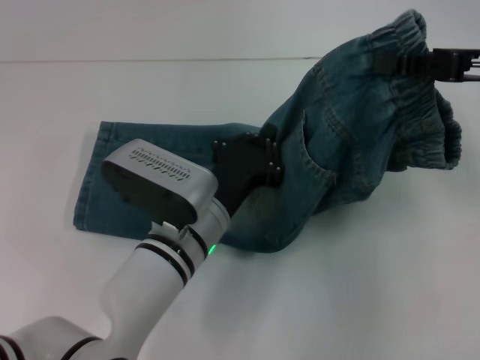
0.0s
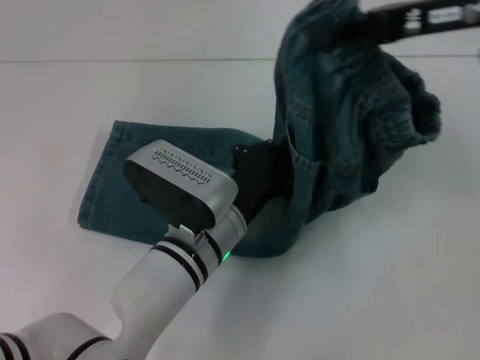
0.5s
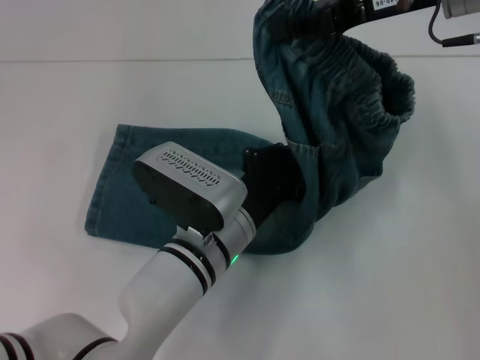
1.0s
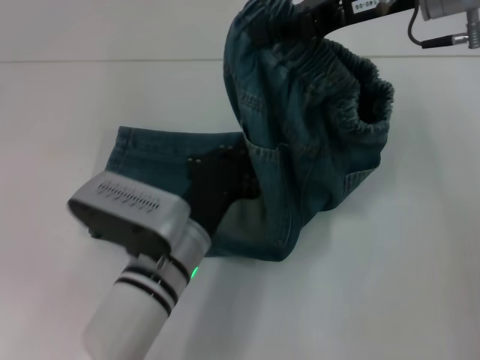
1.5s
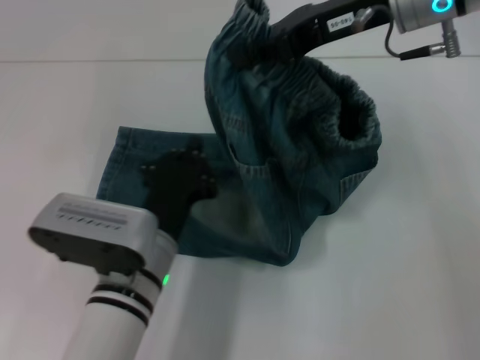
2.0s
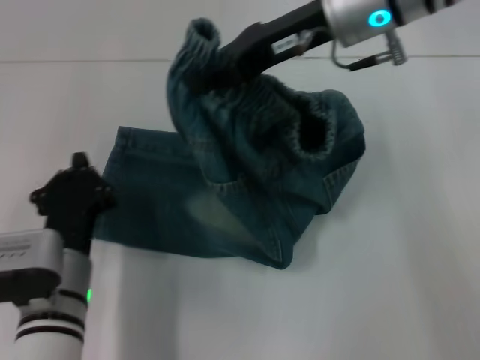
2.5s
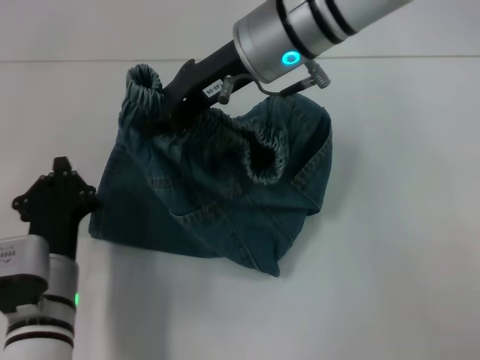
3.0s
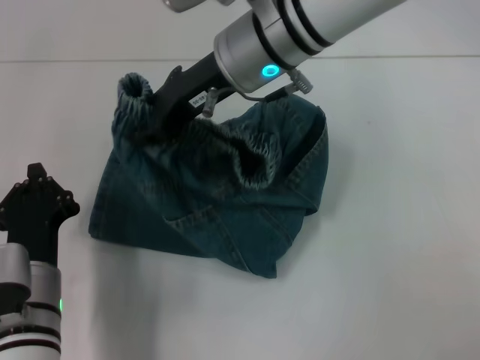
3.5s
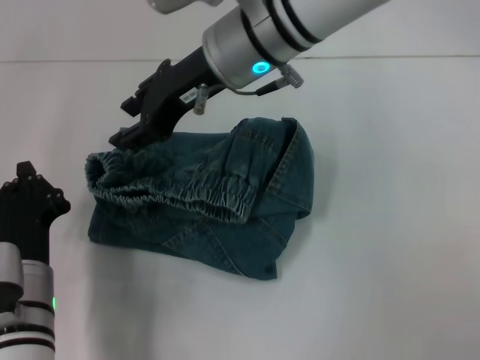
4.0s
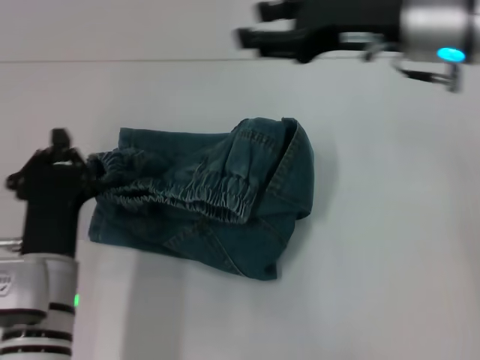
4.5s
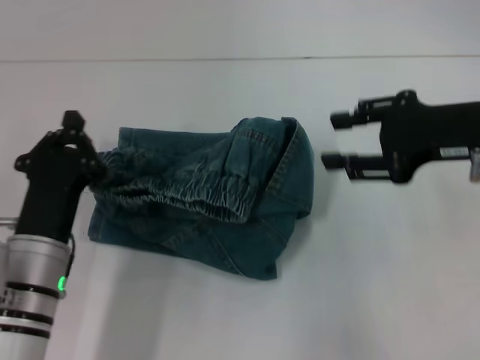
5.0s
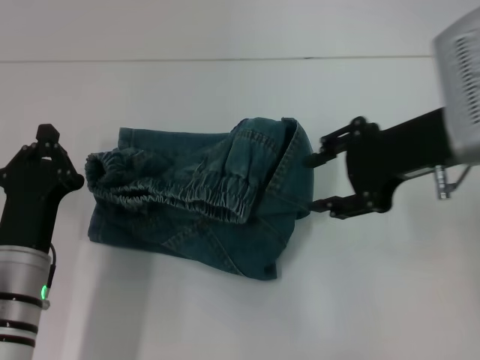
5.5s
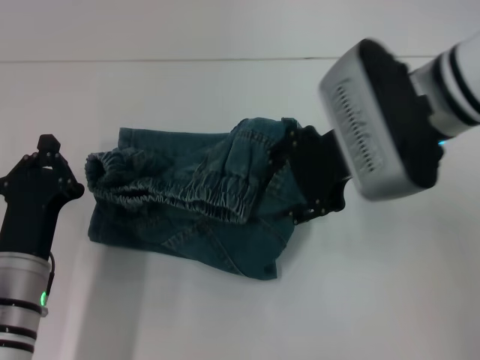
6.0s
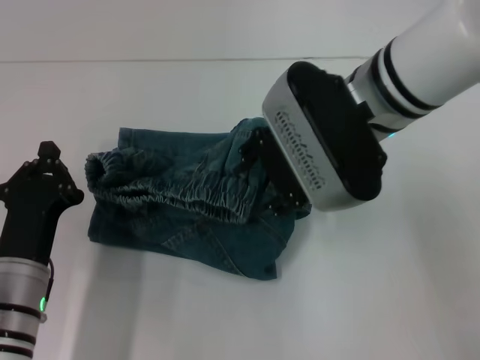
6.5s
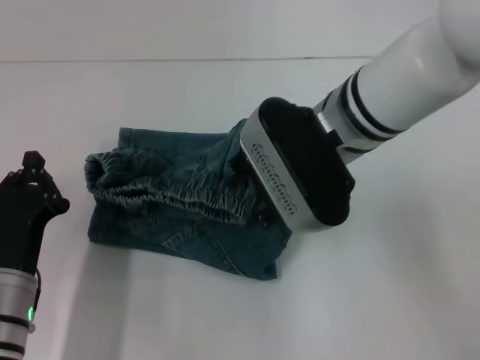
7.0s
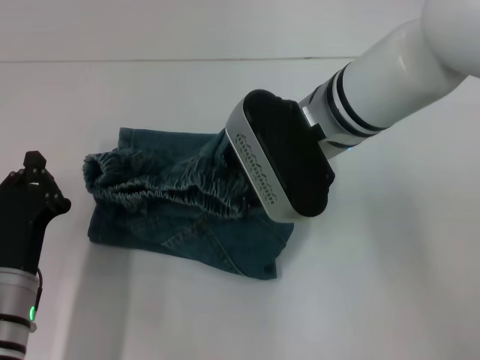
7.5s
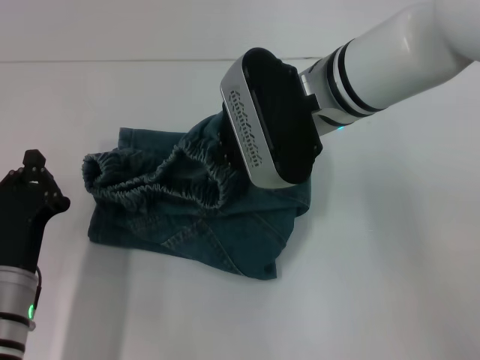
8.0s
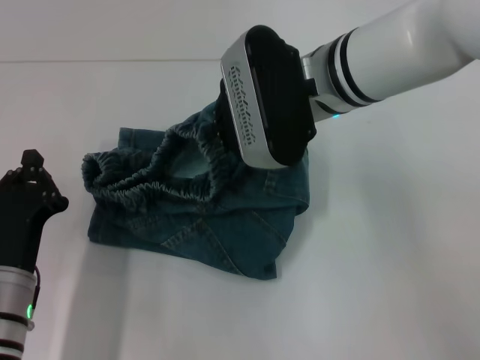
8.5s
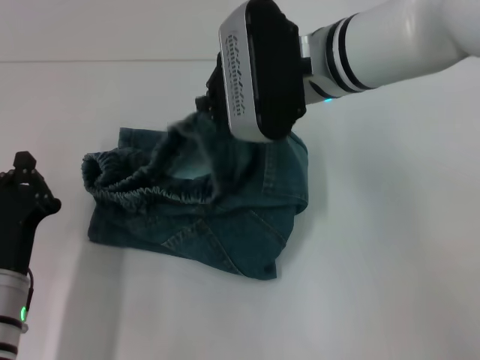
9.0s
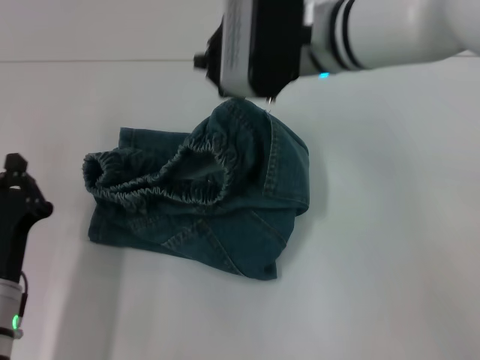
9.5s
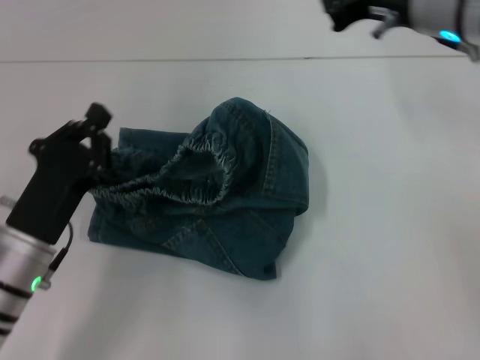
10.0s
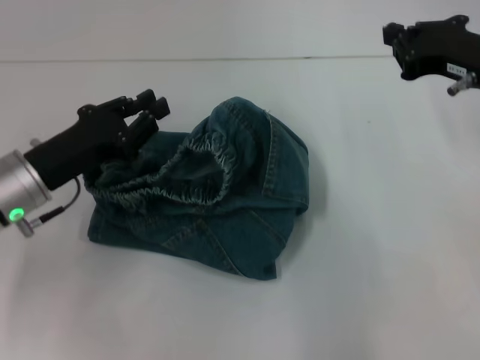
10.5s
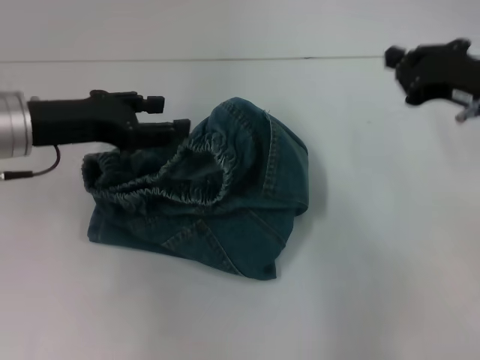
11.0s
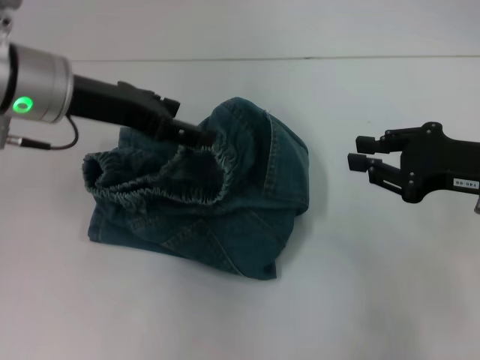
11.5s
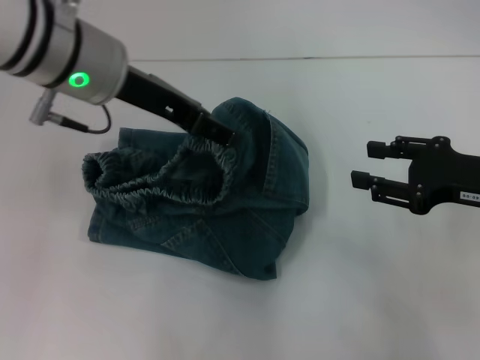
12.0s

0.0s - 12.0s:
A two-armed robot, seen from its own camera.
Step, 1.5s - 4.0s: Fold to the left with your right hand.
0.0s - 2.0s: The right gripper is displaced to the left and forward by approximately 15 cm; the left gripper ends up roughly 5 cm from where it was.
2.0s - 4.0s: The right gripper moves to the left, about 15 cm, and opens its fingers; the left gripper goes about 10 cm to the left.
4.0s - 6.0s: The right gripper heads to the right and backward, covering approximately 15 cm.
6.0s - 8.0s: The right gripper goes about 5 cm to the left, and closes its fingers.
8.0s - 10.0s: The right gripper moves to the right, some 10 cm.
10.0s - 12.0s: The left gripper heads upward and forward, covering roughly 25 cm, and opens up; the right gripper moves backward, to the right and downward, about 20 cm, and opens up.

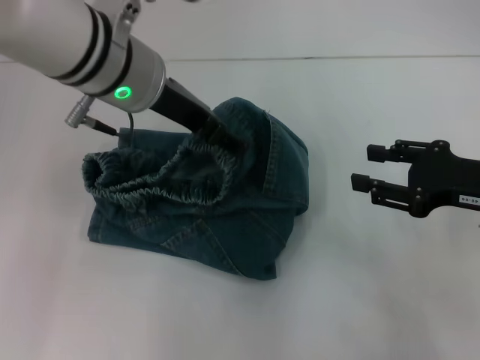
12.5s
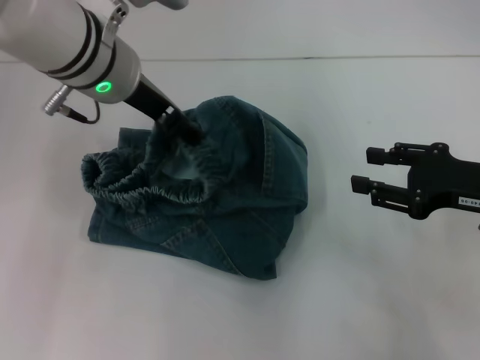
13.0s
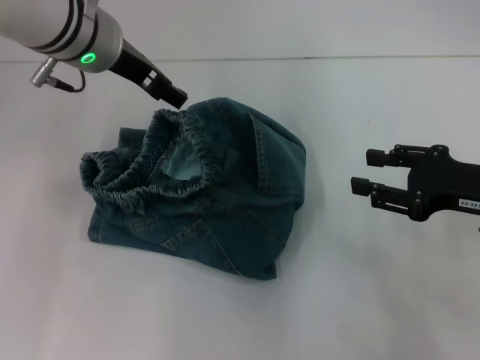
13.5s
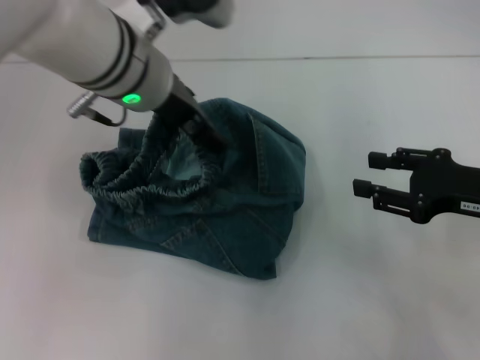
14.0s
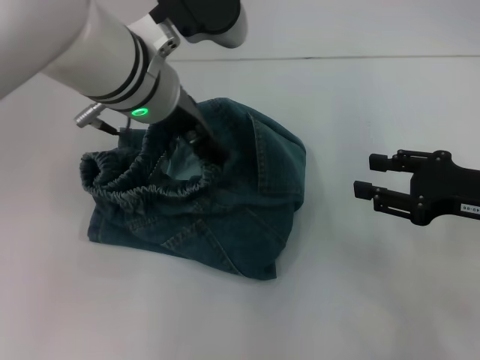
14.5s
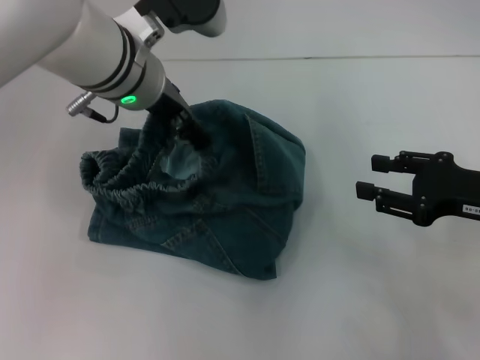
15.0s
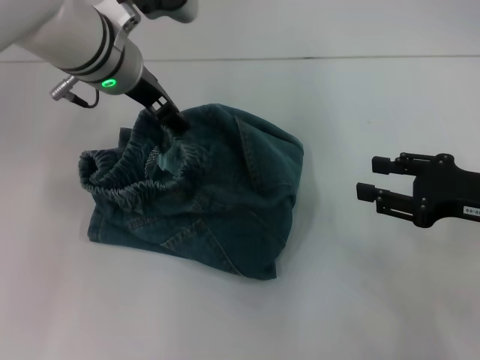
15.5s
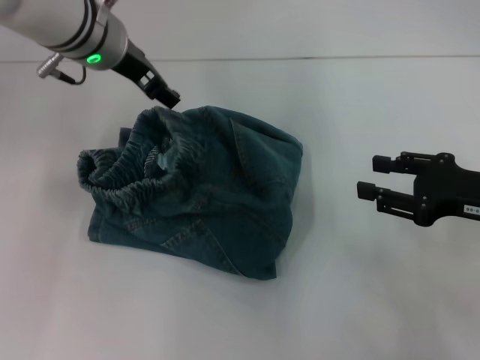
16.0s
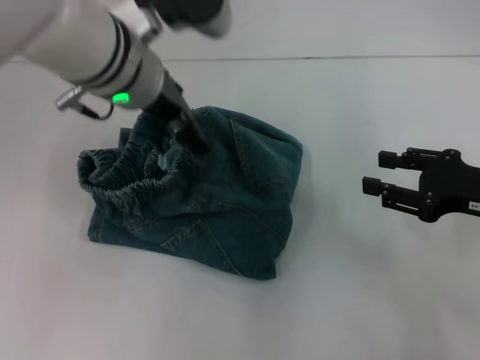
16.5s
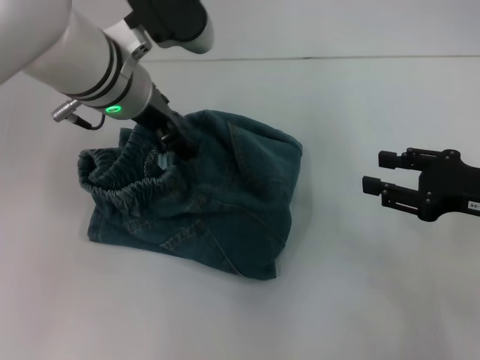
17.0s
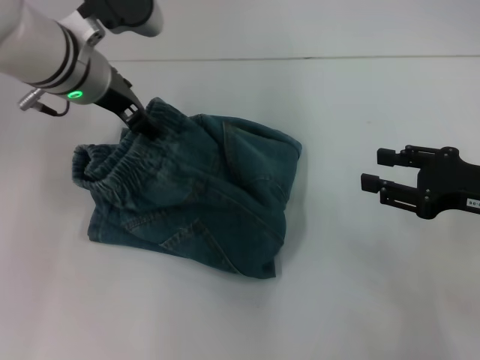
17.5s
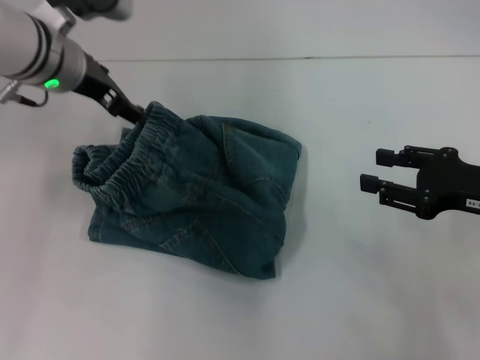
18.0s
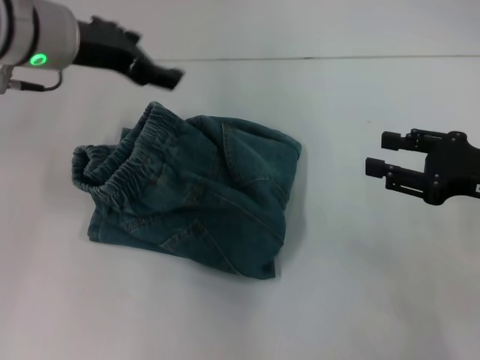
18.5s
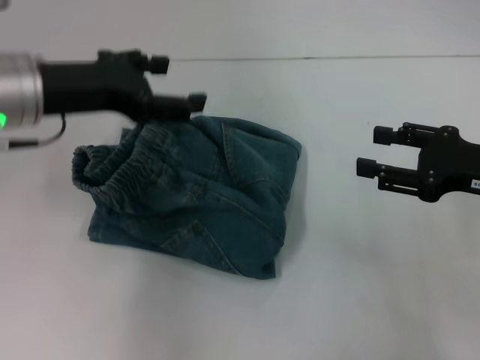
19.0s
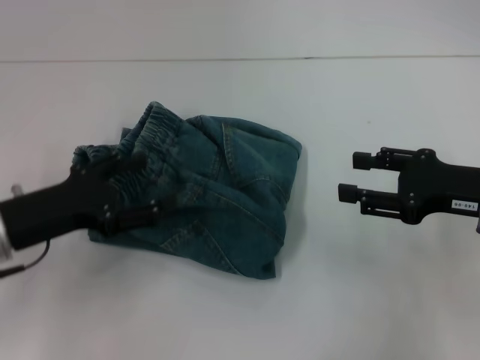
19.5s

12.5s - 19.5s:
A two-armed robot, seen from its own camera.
Step, 12.5s - 18.0s: Adjust the pants with your left hand.
12.5s - 14.5s: The grippers stay close to where they were, moving slightly.
14.5s - 16.0s: The left gripper is displaced forward by roughly 5 cm.
17.5s - 19.5s: The left gripper is displaced backward, to the left and downward by about 20 cm.
